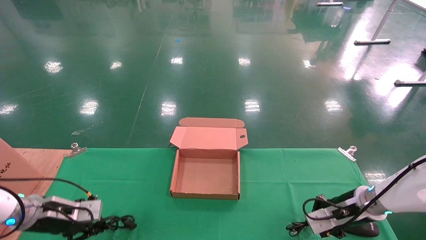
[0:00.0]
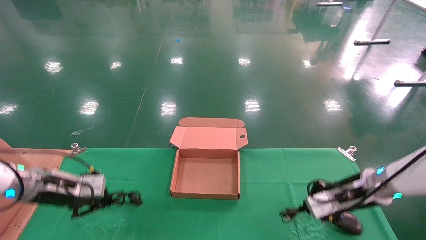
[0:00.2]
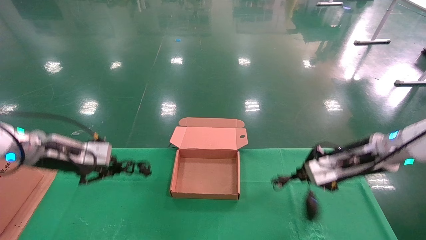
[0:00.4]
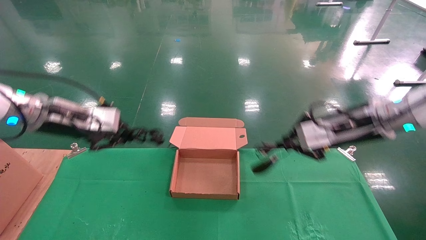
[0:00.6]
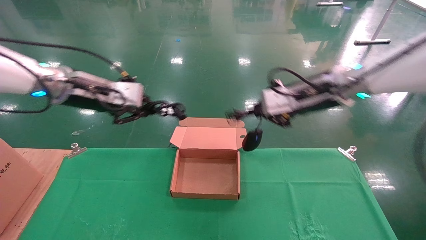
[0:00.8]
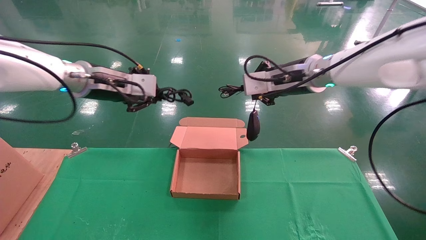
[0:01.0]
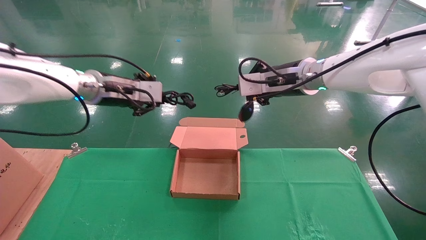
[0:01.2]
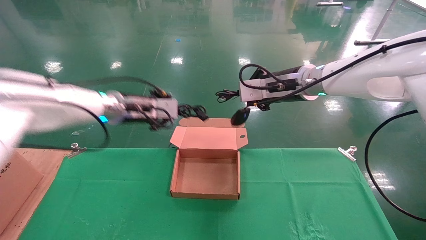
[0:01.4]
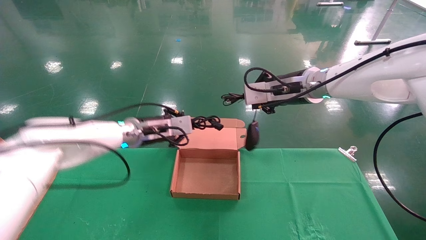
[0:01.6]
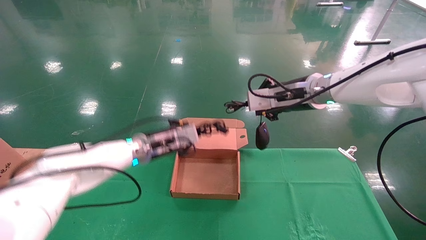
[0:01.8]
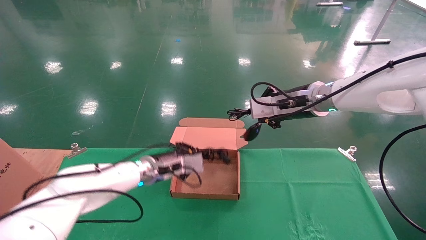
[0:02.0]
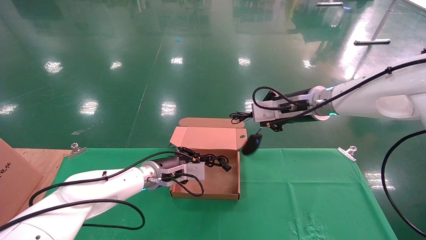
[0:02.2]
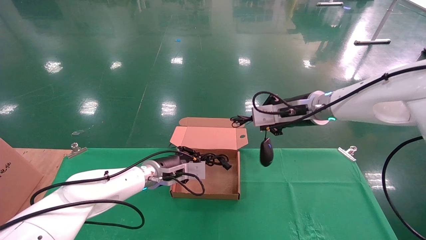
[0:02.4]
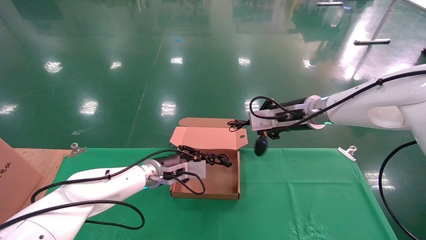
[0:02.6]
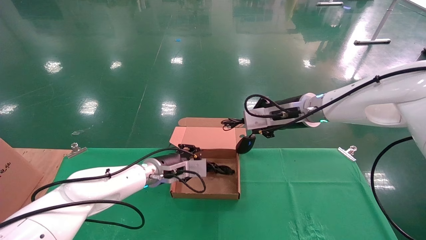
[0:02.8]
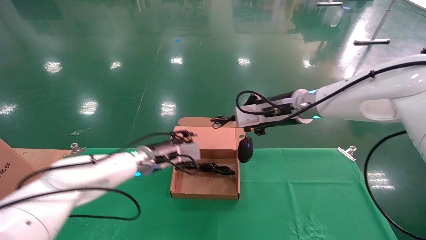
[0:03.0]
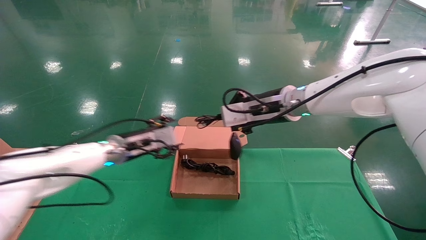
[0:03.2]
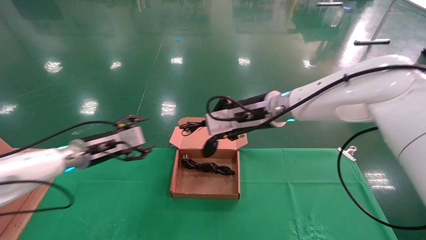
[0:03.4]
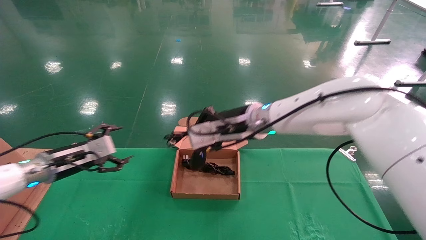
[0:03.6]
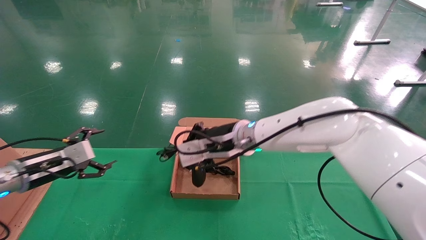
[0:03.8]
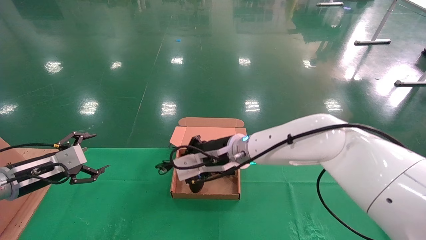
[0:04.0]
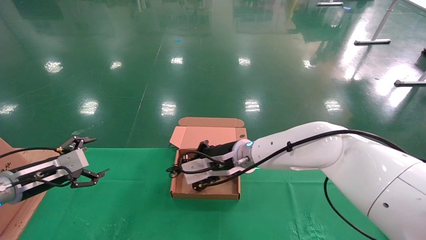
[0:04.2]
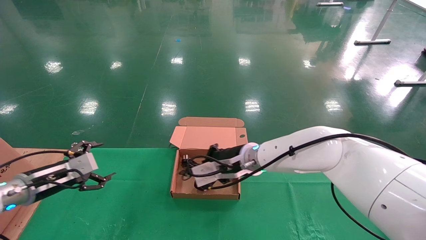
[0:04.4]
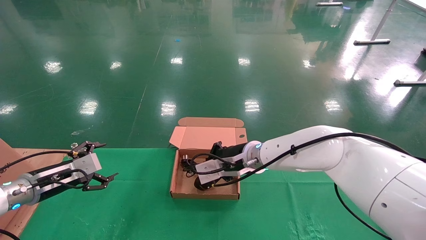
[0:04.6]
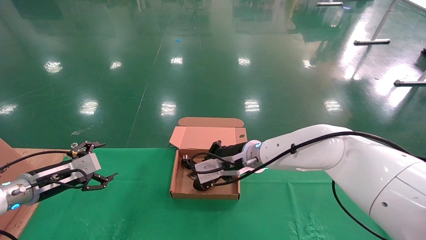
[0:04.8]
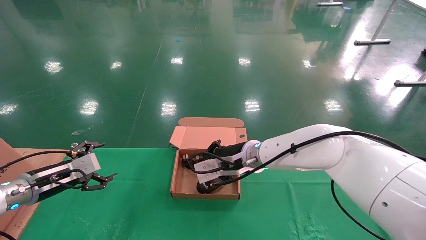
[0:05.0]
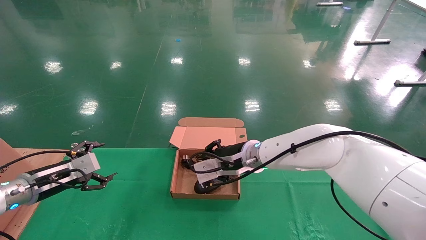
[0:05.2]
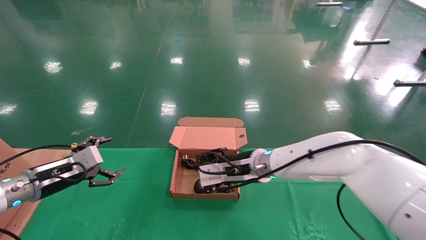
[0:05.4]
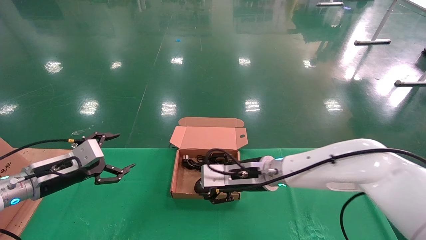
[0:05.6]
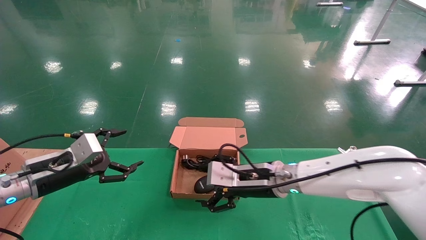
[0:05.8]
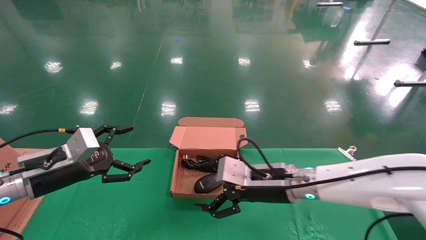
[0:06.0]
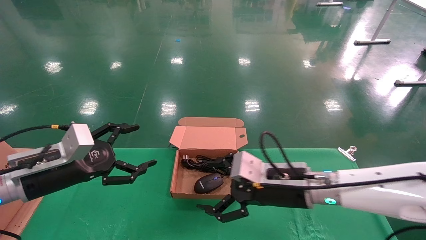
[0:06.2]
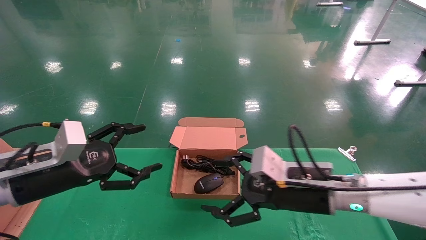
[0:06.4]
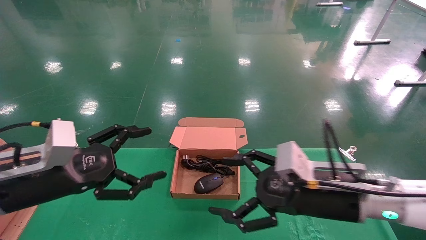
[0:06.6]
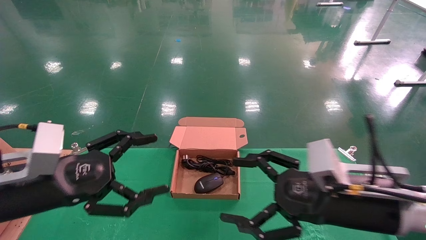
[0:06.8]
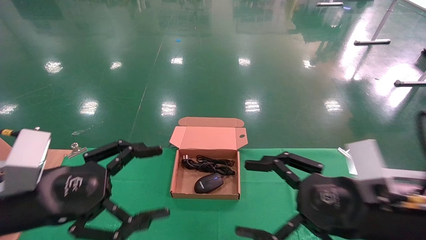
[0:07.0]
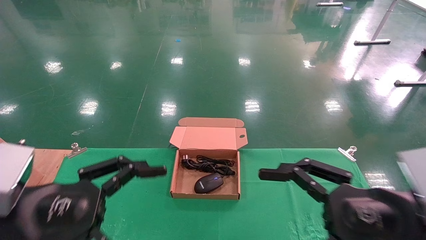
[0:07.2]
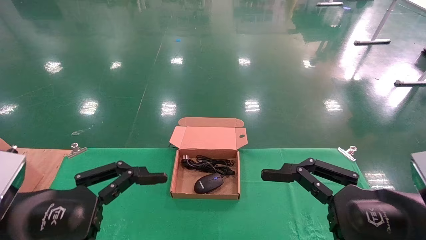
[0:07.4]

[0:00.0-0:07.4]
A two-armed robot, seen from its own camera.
Step, 0:01.4 to 0:05.8: Place the mouse and power cord into the box.
0:00.0 to 0:01.4: The left gripper heads to the right, upward and forward, covering some 25 cm. Meanwhile the right gripper shifts some 30 cm upward and to the left.
0:01.4 to 0:03.0: The left gripper moves downward, approximately 10 cm.
0:03.0 to 0:04.4: The right gripper goes approximately 15 cm downward and to the left, while the left gripper moves to the left, approximately 20 cm, and opens up.
0:04.4 to 0:06.0: The left gripper travels to the right, backward and upward by roughly 10 cm; the right gripper goes roughly 10 cm backward and to the right, and opens its fingers.
0:06.0 to 0:07.4: Both grippers move backward and to the right, some 20 cm.
